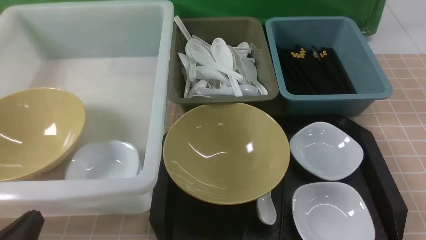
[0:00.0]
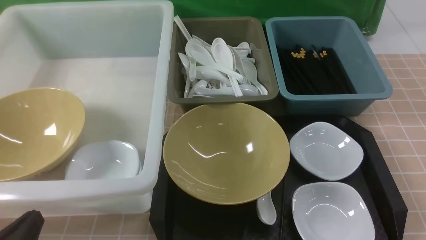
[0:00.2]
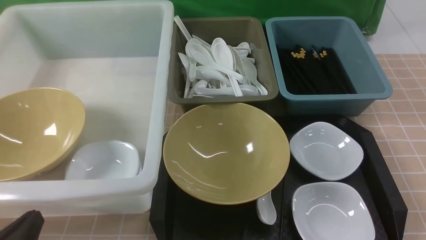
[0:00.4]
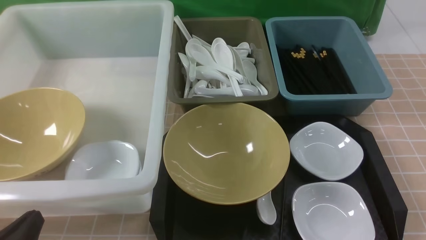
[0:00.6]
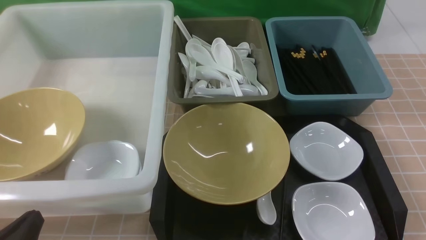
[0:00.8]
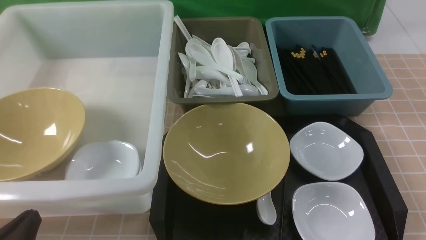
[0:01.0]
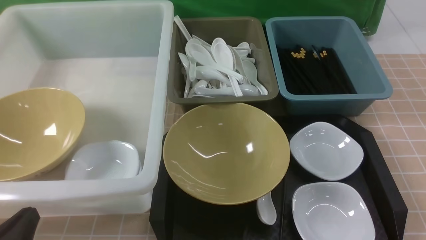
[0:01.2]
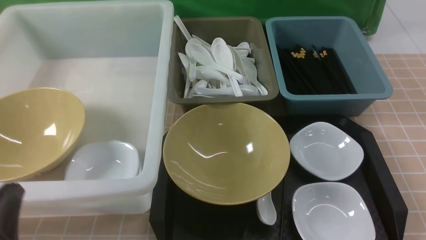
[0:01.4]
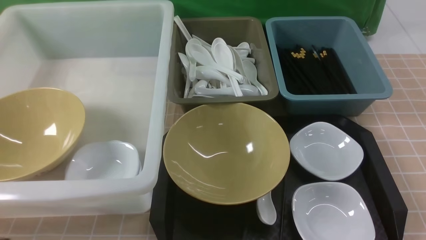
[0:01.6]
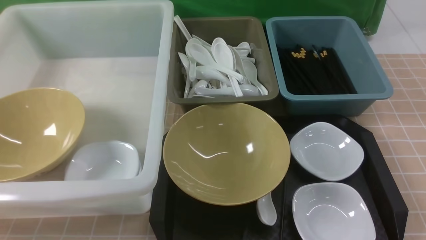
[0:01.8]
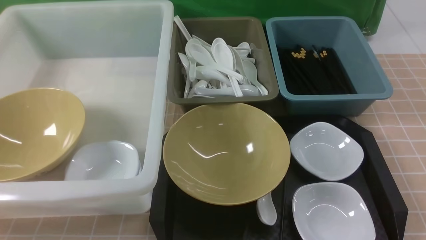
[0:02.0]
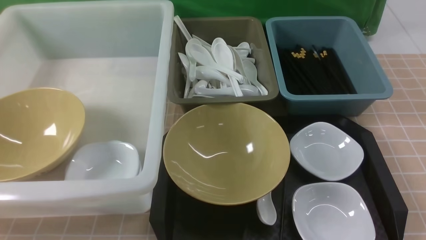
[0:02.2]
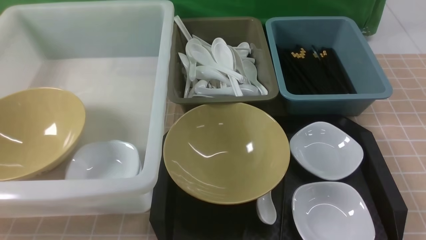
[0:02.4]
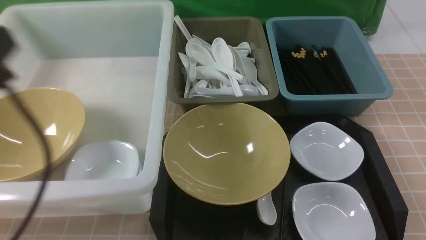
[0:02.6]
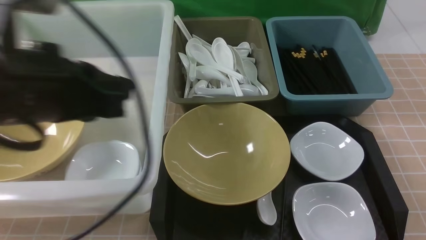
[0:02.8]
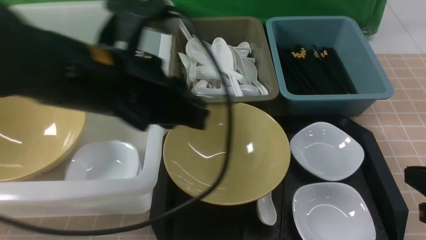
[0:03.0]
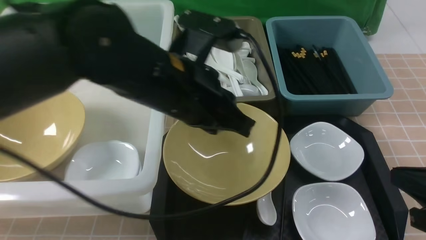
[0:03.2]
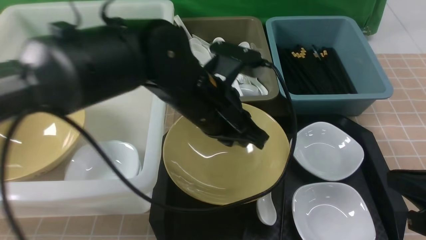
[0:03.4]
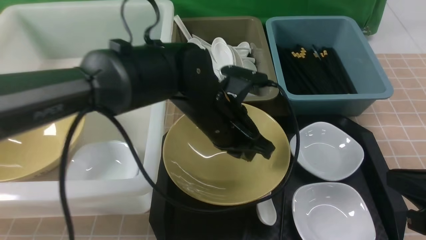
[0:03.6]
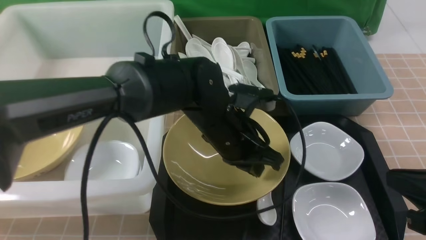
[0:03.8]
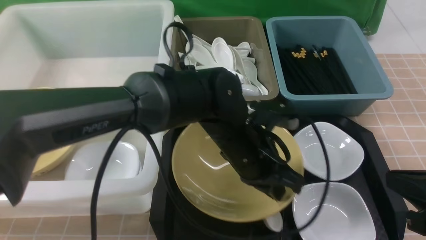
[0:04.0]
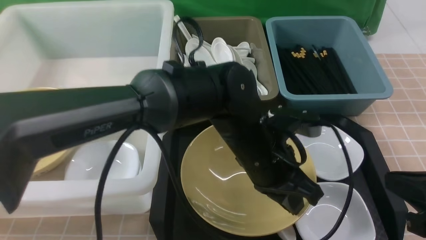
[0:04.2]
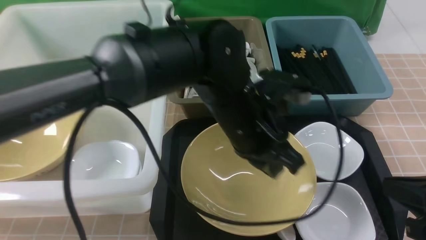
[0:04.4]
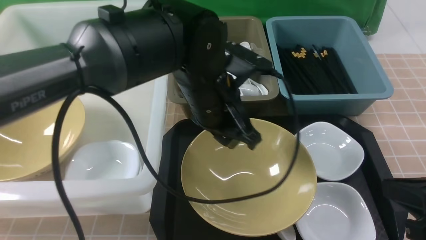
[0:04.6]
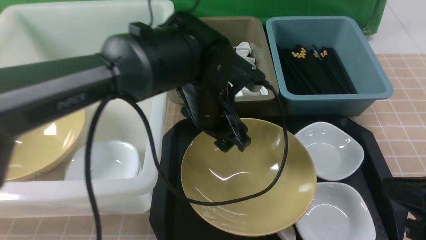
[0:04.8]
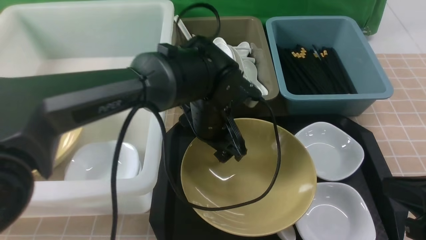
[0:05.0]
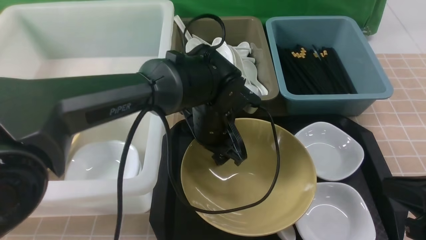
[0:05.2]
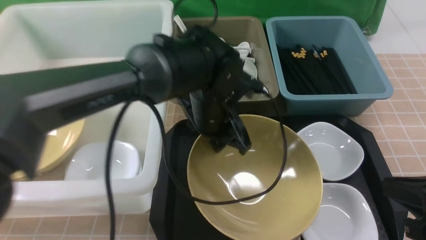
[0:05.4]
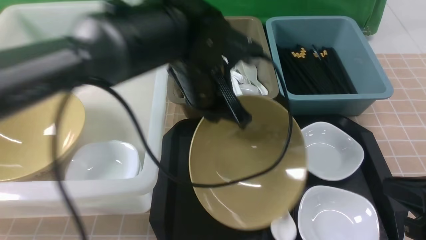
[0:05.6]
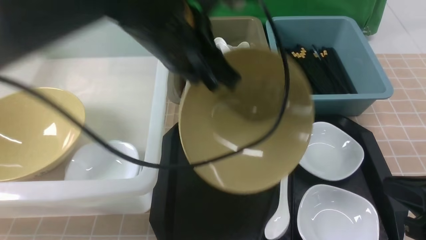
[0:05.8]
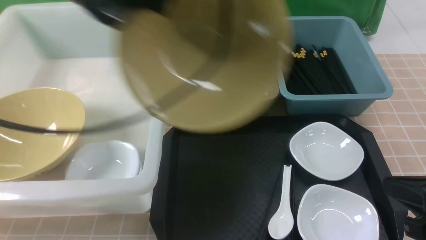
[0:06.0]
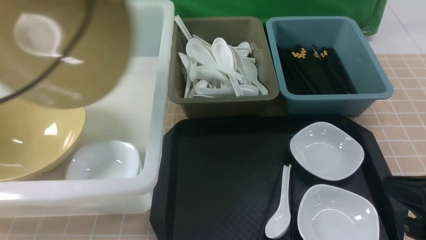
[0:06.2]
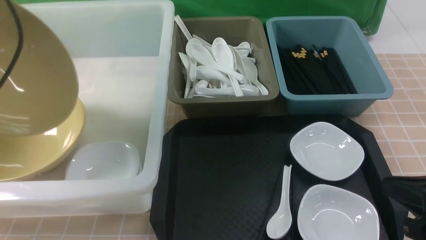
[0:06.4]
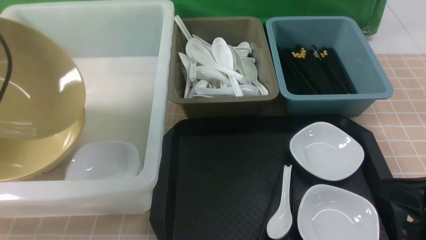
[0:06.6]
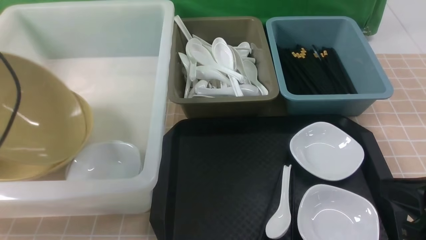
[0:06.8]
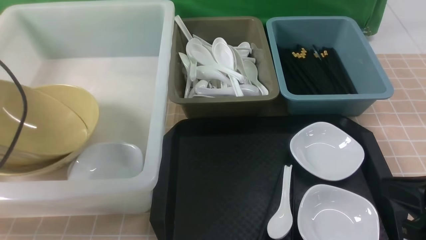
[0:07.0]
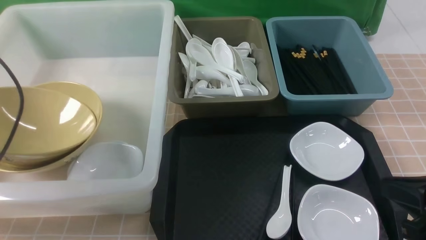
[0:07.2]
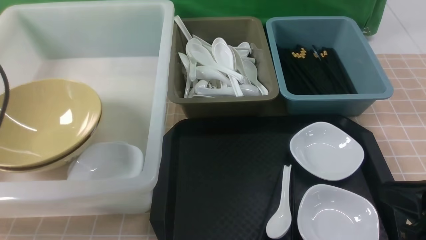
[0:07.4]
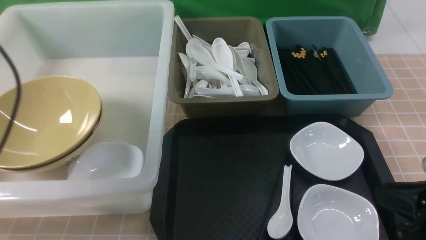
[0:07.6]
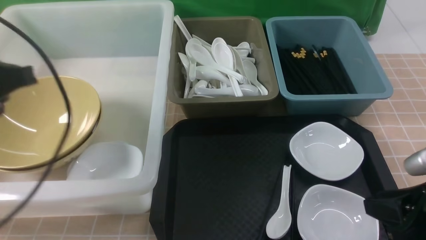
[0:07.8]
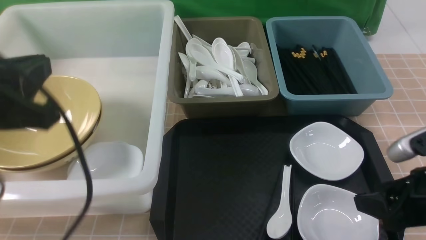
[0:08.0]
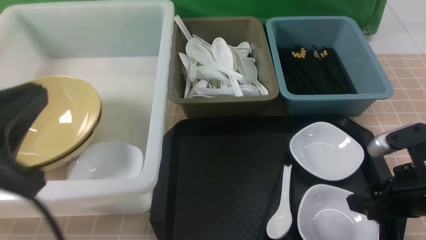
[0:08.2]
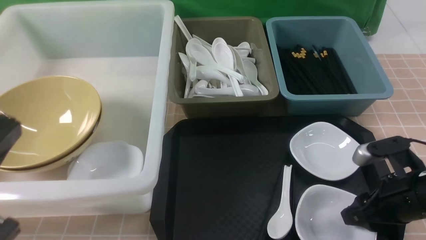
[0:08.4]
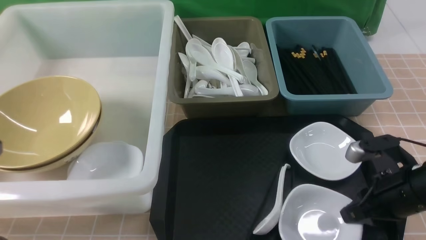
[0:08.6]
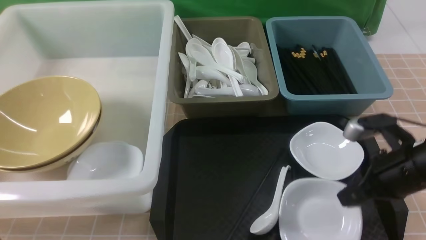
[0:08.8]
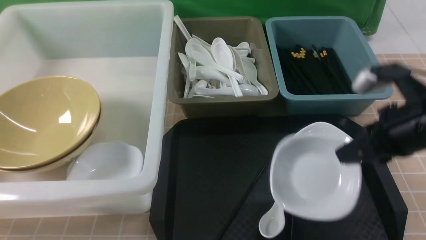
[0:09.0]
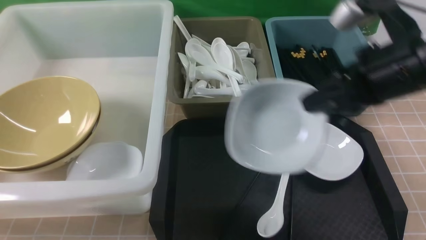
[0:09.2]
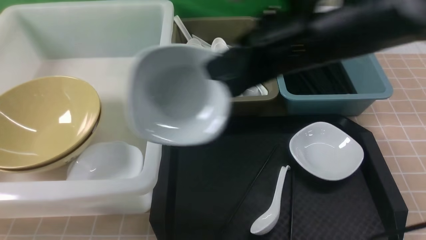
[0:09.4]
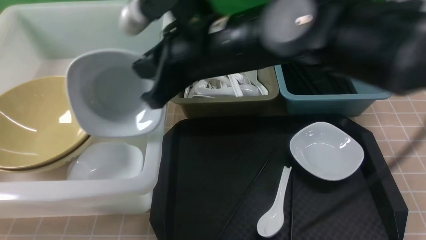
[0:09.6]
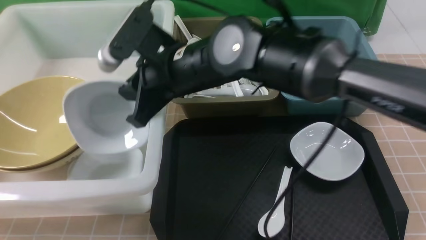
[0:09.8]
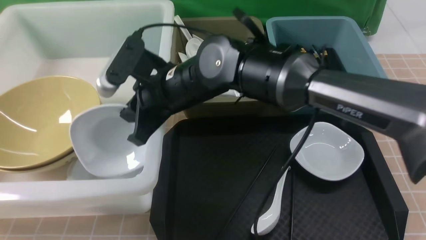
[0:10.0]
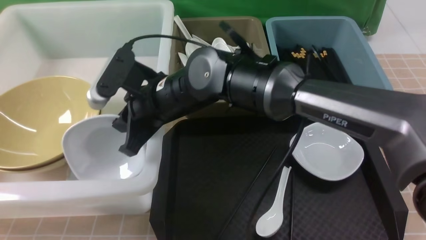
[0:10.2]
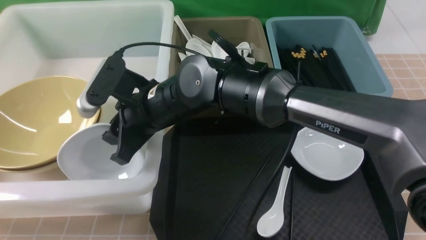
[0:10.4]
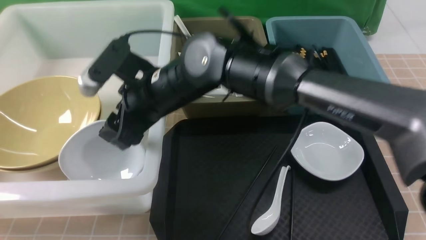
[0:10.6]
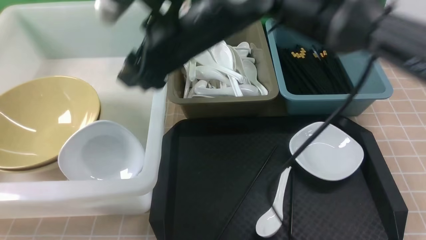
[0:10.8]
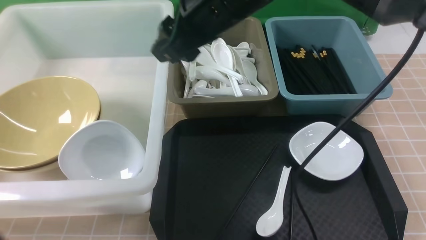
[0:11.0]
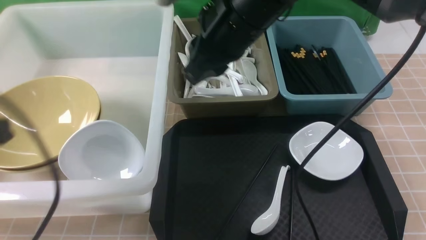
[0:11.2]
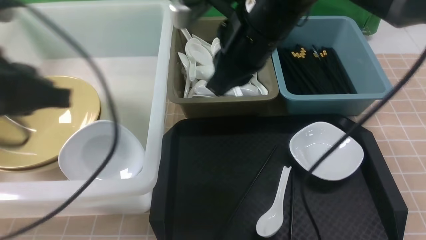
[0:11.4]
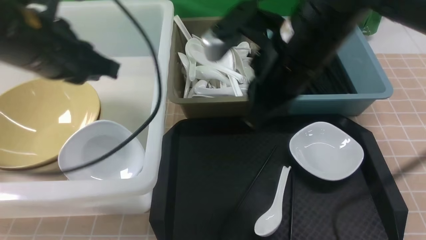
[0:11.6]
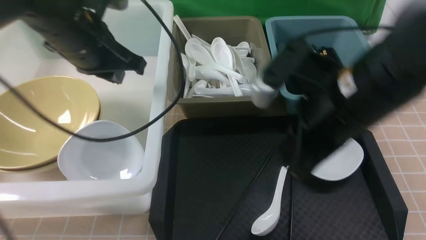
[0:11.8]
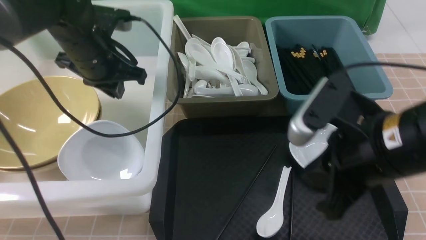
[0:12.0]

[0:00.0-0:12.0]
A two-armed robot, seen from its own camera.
Task of the whole recording: on brown table put chopsticks spoon bowls plates into blue grey white boxes.
Step, 0:00.0 to 0:05.4: use the left arm to grab the yellow noodle bowl on the left.
Step, 0:05.6 to 0:07.2: use the left arm to put the noodle bowl into the large storage box on the left.
Step, 0:07.4 to 0:08.6: use the right arm to grab the plate.
Step, 0:08.8 to 0:10.6: use the right arm to put the plate into the large storage box on the left.
0:00.0 to 0:01.6: The left gripper is displaced upward by some 5 cm.
0:01.6 to 0:03.0: The right gripper heads forward, covering roughly 10 cm, and closes its fingers; the left gripper moves forward, to the right and upward, roughly 25 cm.
0:03.0 to 0:04.4: The left gripper goes approximately 15 cm to the right and downward.
0:04.4 to 0:06.0: The left gripper moves to the left and upward, roughly 25 cm, and opens and closes again.
0:06.0 to 0:07.6: The left gripper heads to the left, downward and backward, covering approximately 15 cm, and opens its fingers.
0:07.6 to 0:09.0: The right gripper is displaced forward and upward by roughly 15 cm, and opens and closes again. The left gripper shifts some 15 cm backward, and closes.
0:09.0 to 0:10.4: The right gripper shifts some 30 cm to the left, and opens its fingers.
0:10.4 to 0:12.0: The left gripper shifts roughly 35 cm forward. Meanwhile the right gripper travels to the right and backward by some 25 cm, and closes its fingers.

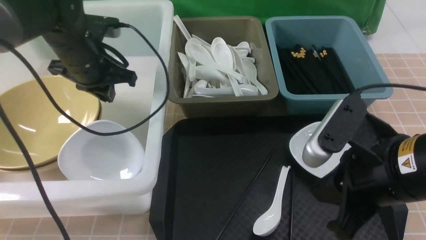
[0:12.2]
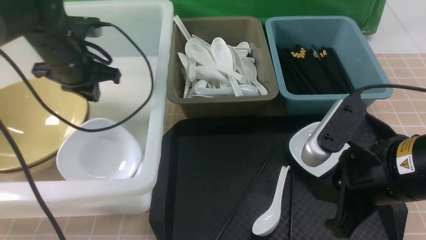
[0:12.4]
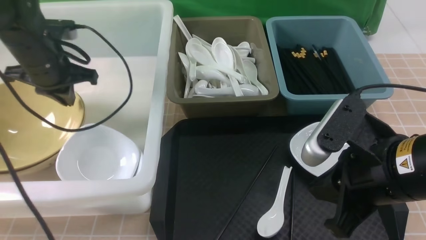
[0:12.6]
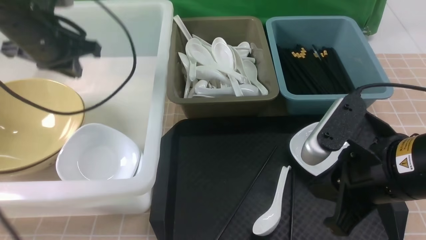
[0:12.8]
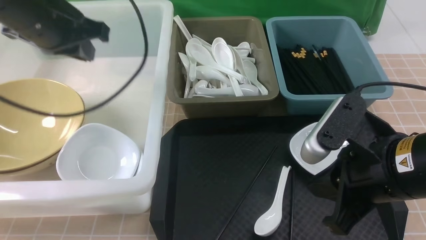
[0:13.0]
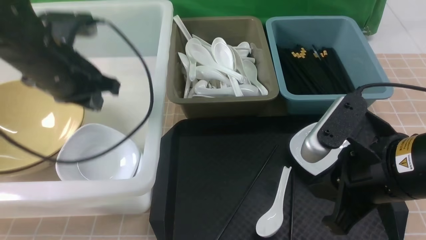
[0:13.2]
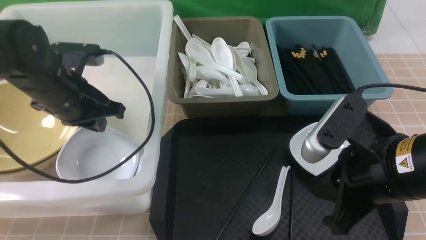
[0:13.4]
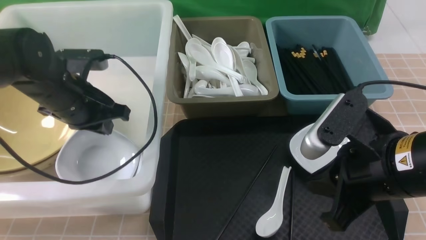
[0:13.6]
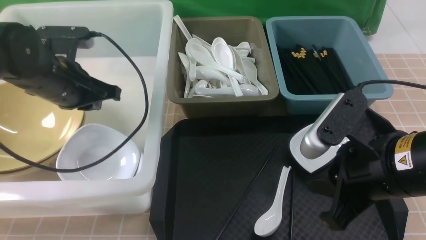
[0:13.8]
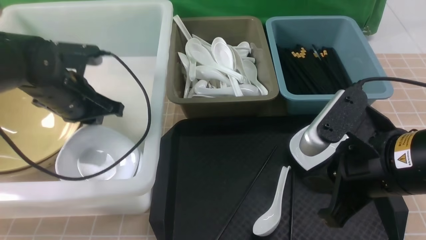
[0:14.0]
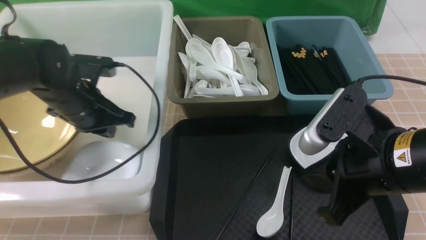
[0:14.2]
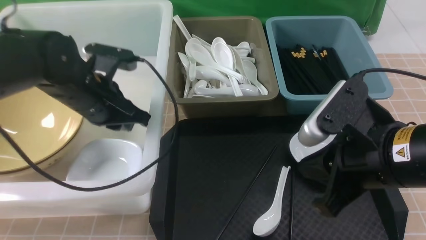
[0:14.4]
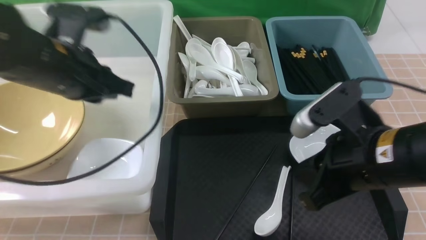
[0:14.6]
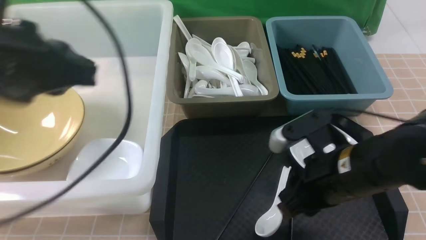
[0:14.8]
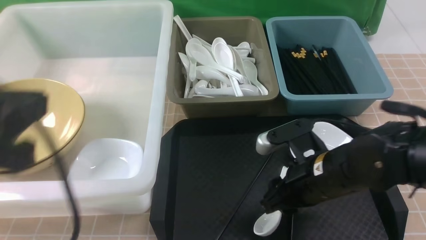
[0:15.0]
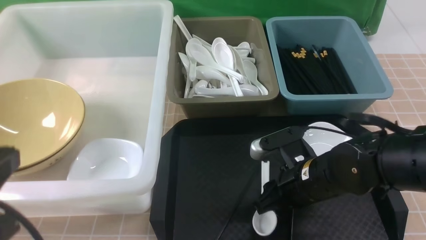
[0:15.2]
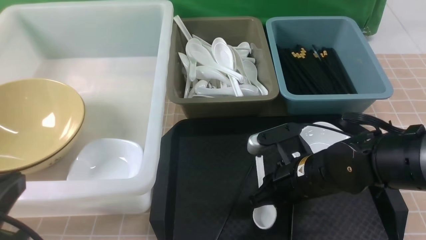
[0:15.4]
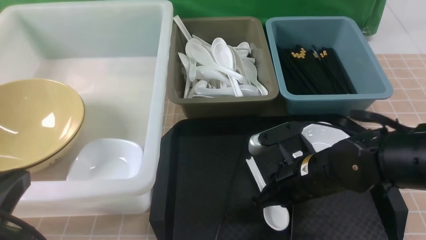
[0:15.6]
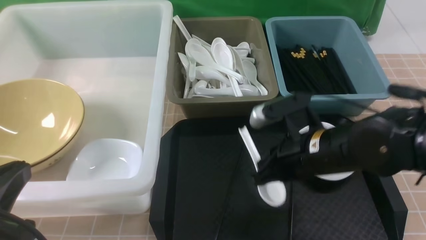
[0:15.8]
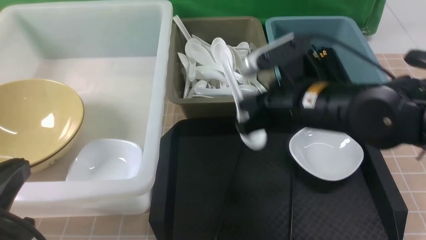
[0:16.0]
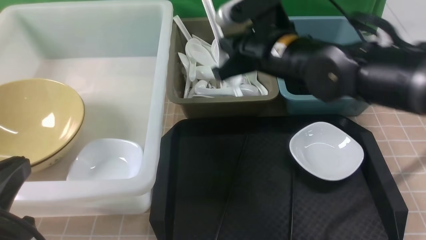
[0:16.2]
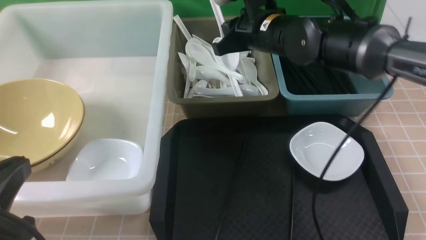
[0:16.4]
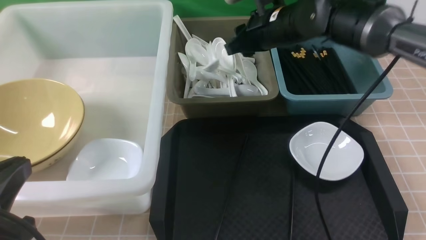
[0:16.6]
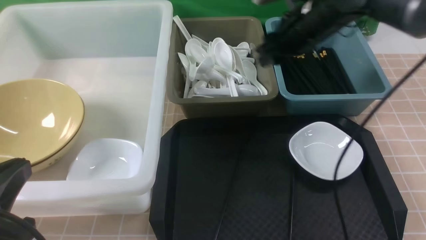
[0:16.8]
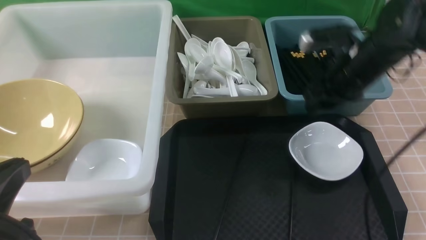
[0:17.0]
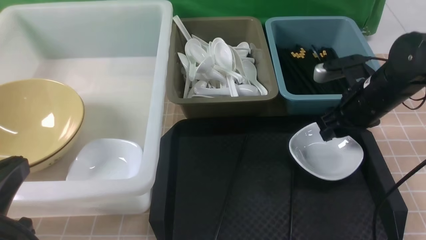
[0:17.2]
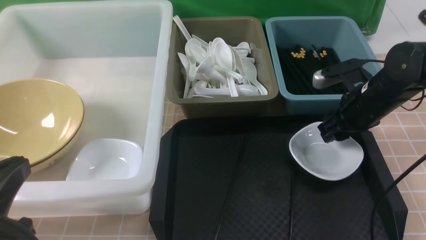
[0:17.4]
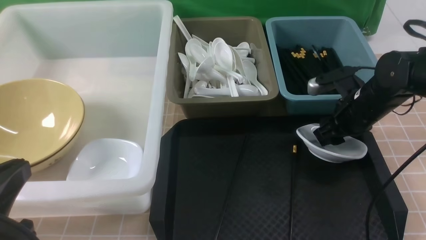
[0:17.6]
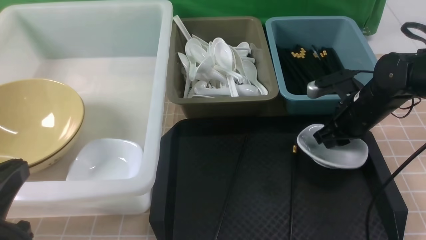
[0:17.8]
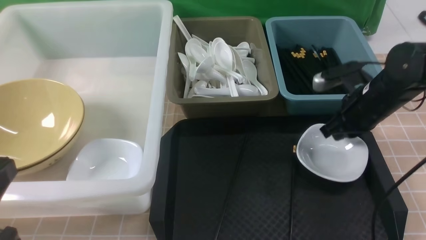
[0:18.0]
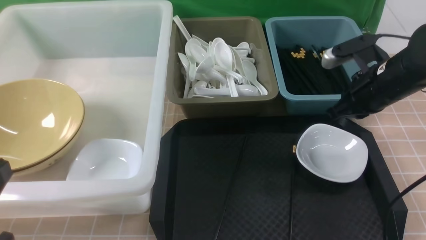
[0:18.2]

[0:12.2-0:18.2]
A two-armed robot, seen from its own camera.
Task of the whole recording: on brown table put chopsticks spoon bowls plates into blue grey white boxes.
Step, 0:12.2 to 0:15.6: use the right arm to grab the soup spoon in the middle.
Step, 0:15.8 to 0:16.6: use the right arm to put the soup spoon into the small storage box in the middle.
0:12.2 to 0:13.8: The left gripper moves backward, roughly 5 cm, and moves about 5 cm upward and comes back.
0:13.8 to 0:15.2: The left gripper travels backward by about 25 cm. Meanwhile the right gripper goes roughly 15 cm downward and forward, and opens.
0:15.2 to 0:16.6: The right gripper shifts approximately 25 cm forward and upward, and closes, then reopens.
0:16.6 to 0:18.2: The right gripper goes about 15 cm to the right, backward and downward, and closes.
